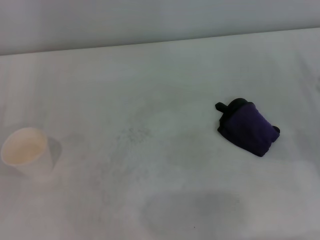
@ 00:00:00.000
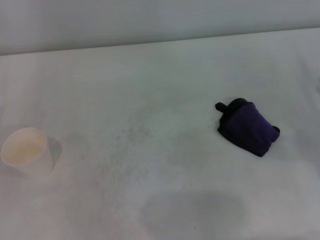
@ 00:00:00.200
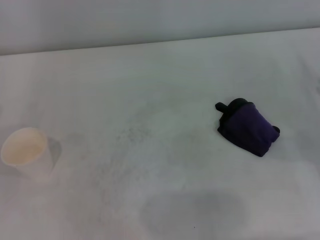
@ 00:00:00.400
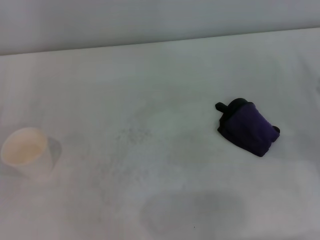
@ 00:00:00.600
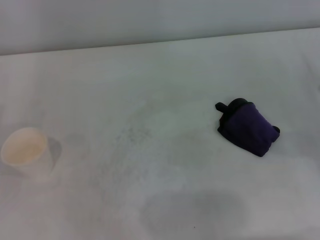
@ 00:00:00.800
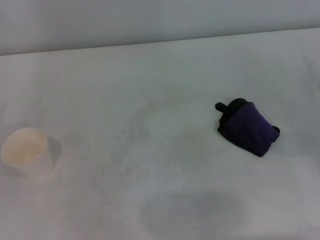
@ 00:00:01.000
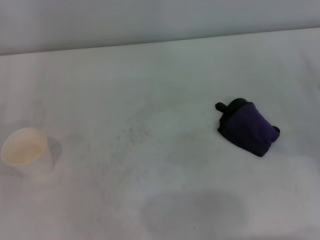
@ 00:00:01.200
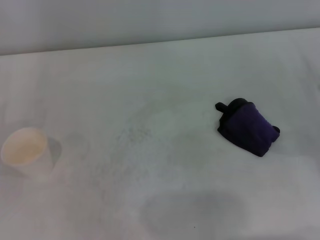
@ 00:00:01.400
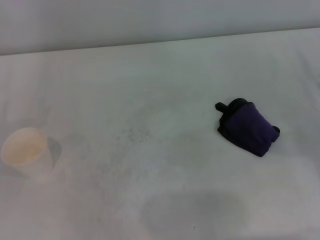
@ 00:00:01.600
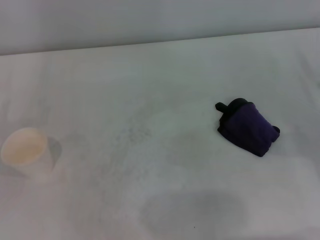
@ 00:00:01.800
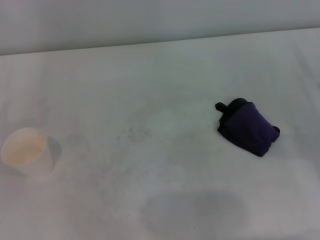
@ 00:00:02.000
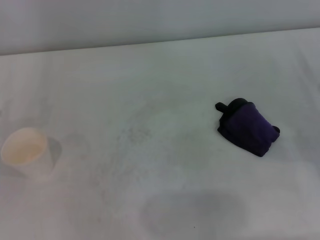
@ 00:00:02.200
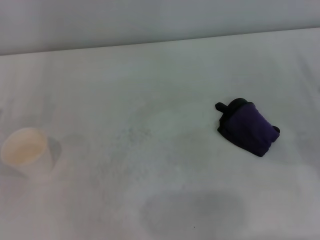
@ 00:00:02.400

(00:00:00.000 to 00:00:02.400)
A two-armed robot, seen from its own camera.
00:00:00.000 - 00:00:01.200: Both grippers stay about where they are.
00:00:01.200 - 00:00:02.400: Neither gripper changes place.

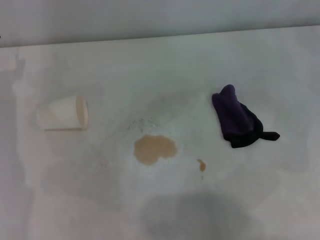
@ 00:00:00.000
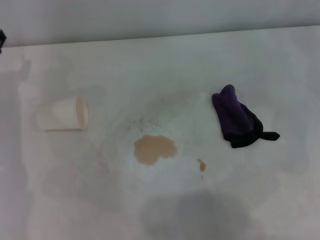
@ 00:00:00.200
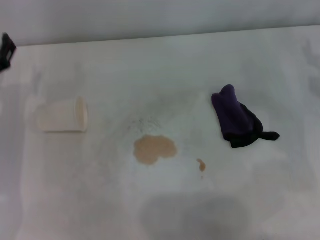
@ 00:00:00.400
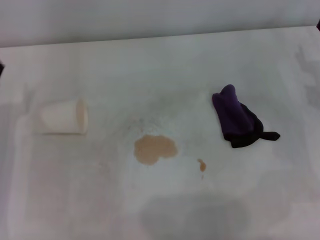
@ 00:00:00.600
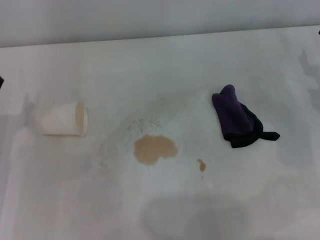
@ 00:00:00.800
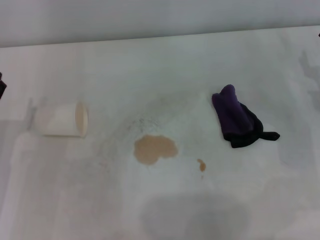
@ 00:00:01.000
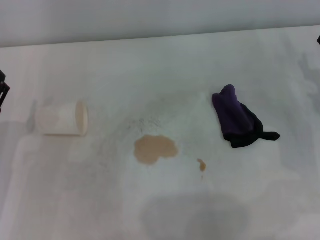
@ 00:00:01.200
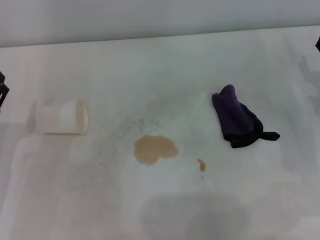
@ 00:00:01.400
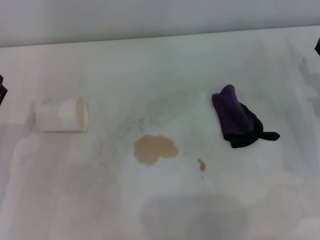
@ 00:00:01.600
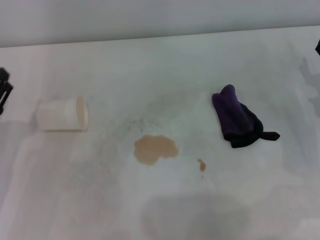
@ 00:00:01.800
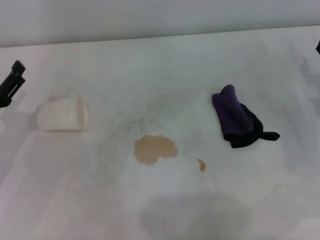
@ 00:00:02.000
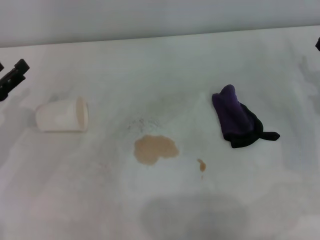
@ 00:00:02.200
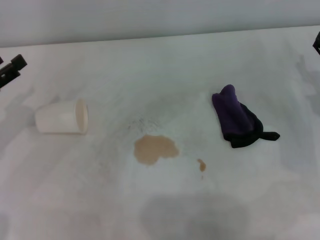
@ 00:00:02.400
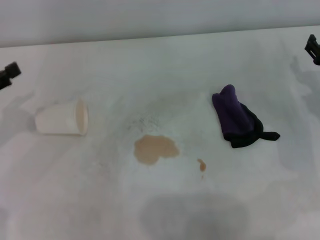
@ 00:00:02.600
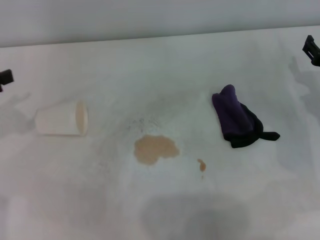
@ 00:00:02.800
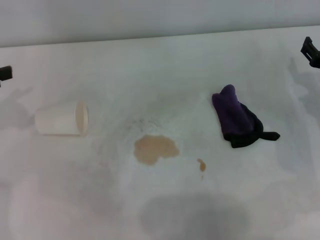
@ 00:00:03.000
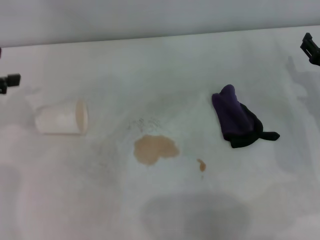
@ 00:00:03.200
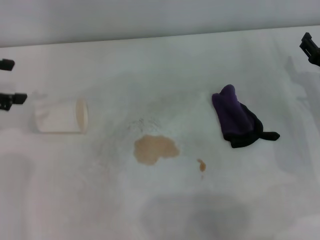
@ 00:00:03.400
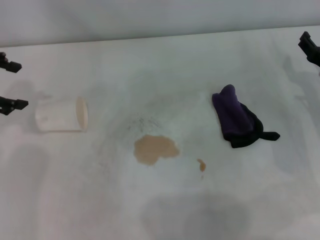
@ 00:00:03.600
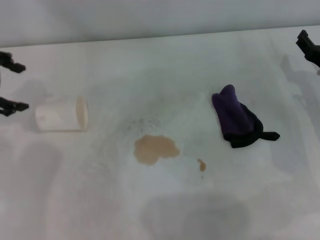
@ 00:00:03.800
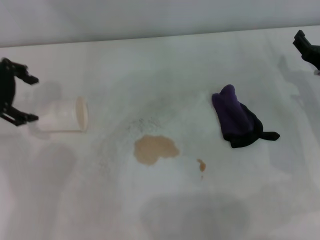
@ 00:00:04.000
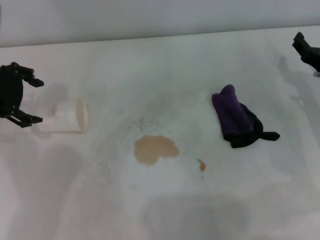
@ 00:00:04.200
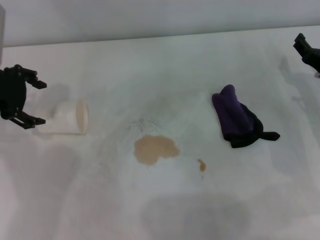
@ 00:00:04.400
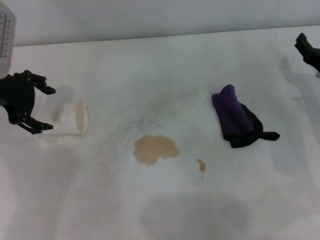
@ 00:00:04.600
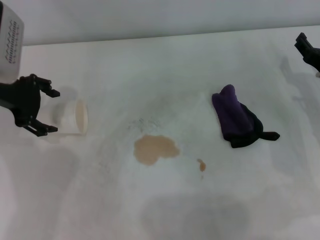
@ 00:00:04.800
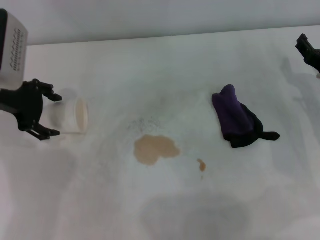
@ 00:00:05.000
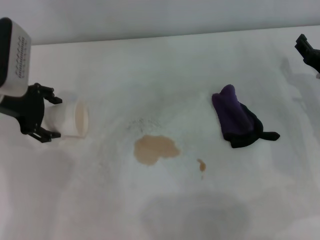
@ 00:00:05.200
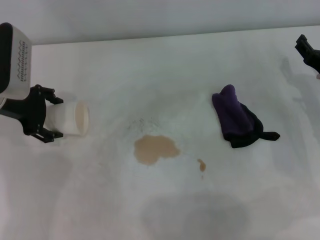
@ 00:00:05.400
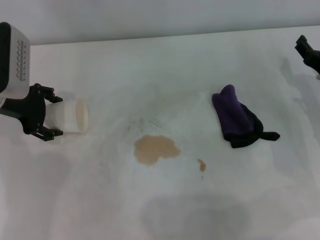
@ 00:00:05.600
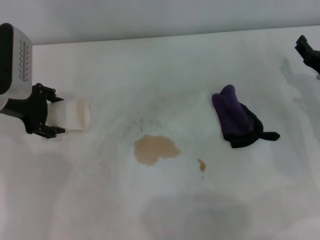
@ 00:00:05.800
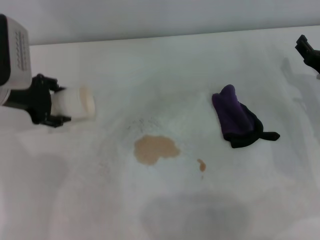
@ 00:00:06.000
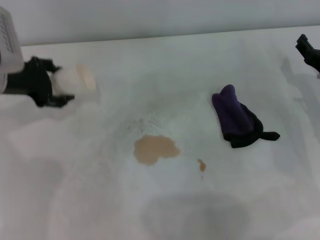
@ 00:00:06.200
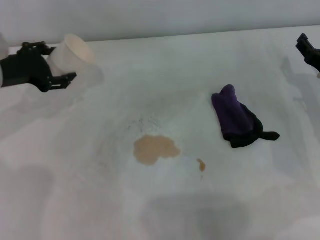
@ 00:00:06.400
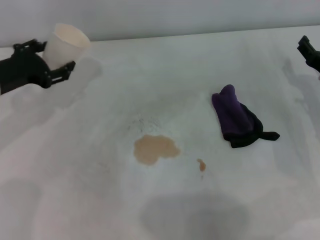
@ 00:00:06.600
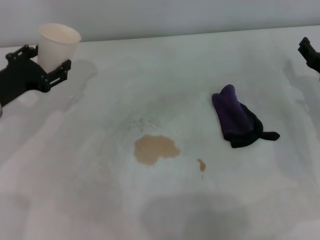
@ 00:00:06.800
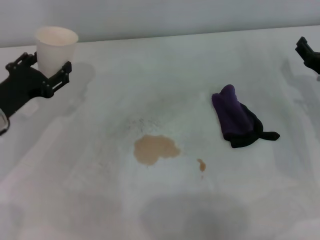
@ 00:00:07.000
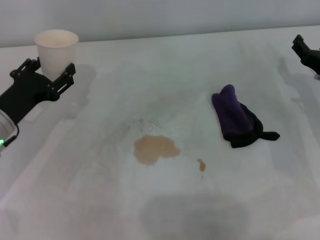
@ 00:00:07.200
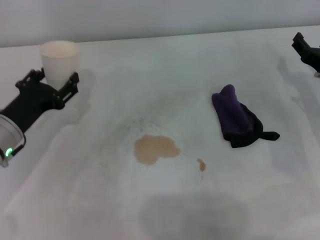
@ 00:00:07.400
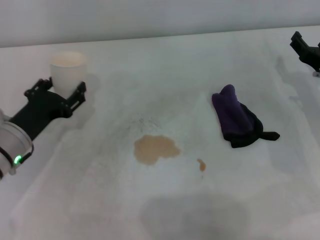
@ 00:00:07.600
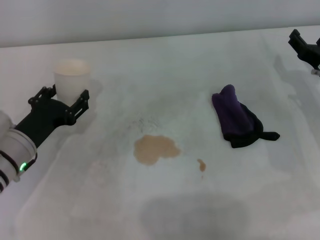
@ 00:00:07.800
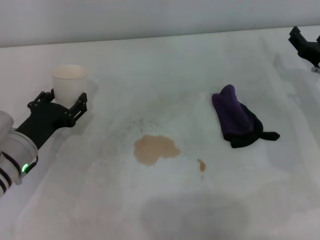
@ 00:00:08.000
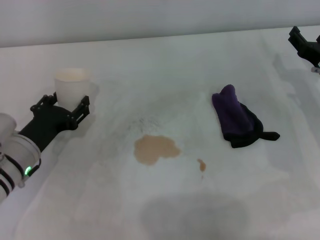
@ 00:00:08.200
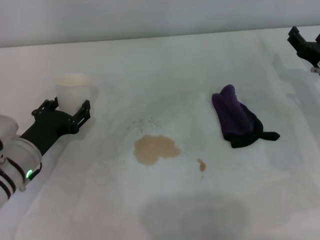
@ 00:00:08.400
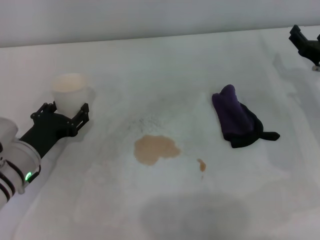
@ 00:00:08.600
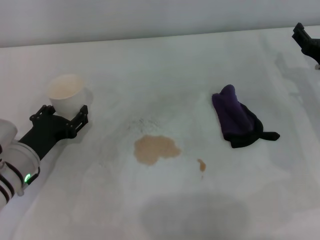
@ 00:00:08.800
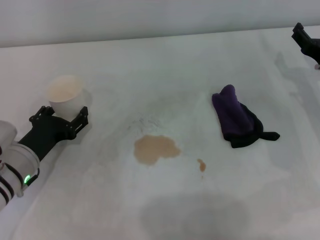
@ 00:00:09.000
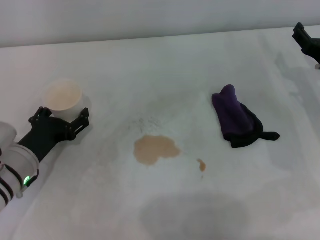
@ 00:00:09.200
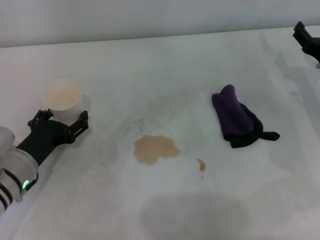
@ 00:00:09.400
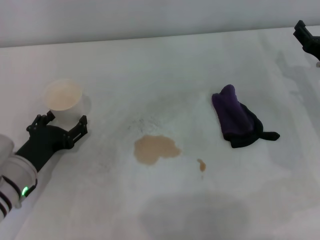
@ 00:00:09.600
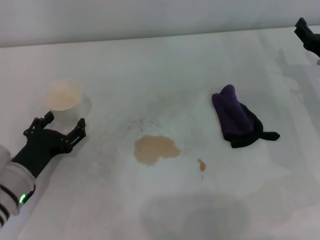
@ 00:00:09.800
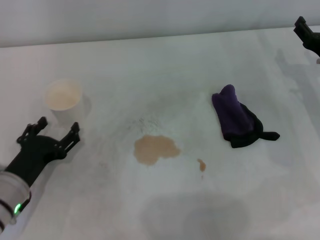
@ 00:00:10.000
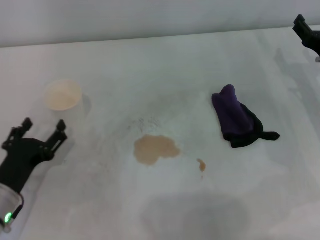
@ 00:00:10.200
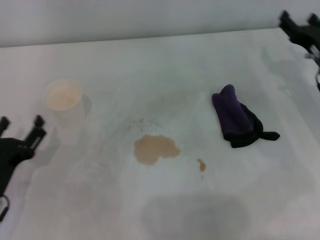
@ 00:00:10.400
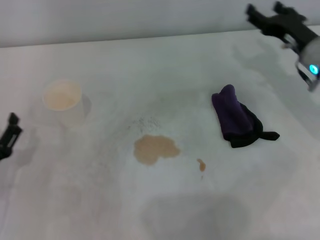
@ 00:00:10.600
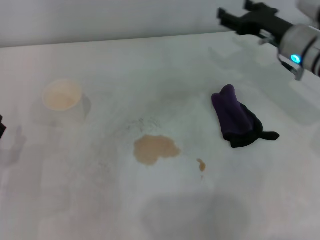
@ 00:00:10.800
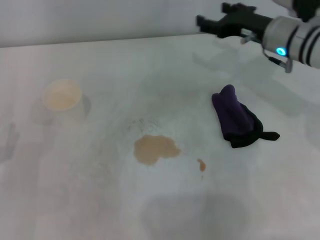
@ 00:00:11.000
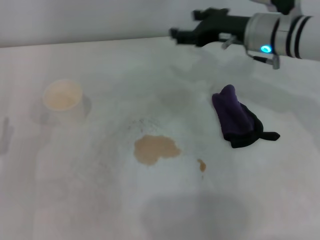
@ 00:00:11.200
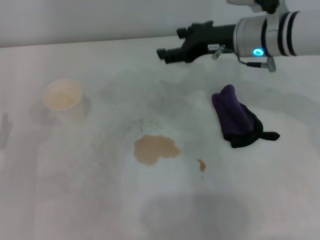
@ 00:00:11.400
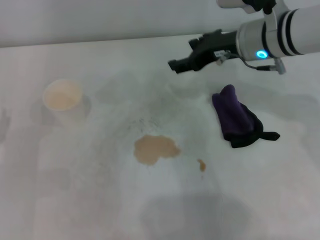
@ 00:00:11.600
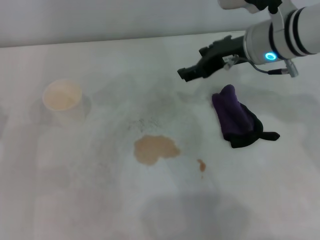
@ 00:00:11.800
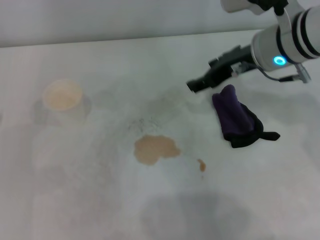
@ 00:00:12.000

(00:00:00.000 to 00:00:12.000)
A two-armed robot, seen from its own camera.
Step, 00:00:00.000 - 00:00:05.600: Grasp the paper cup with the left gripper.
Step, 00:00:05.800 - 00:00:09.400: Stand the paper cup upright with the left gripper.
00:00:00.000 - 00:00:01.600: The right gripper goes about 5 cm backward; the left gripper shifts some 15 cm backward.
00:00:01.600 - 00:00:03.000: The left gripper is displaced upward, forward and to the left by some 20 cm.
00:00:03.000 - 00:00:04.400: The left gripper is displaced to the right and forward by some 10 cm.
00:00:04.400 - 00:00:06.000: The left gripper goes roughly 5 cm downward, and closes up.
00:00:06.000 - 00:00:07.600: The left gripper shifts about 15 cm downward and backward.
00:00:07.600 - 00:00:09.000: The grippers stay close to where they were, moving slightly.
00:00:09.000 - 00:00:10.400: The left gripper travels backward by roughly 10 cm, and opens.
00:00:10.400 - 00:00:12.000: The left gripper is displaced to the left by about 5 cm. Meanwhile the right gripper heads to the left and upward, covering approximately 20 cm.

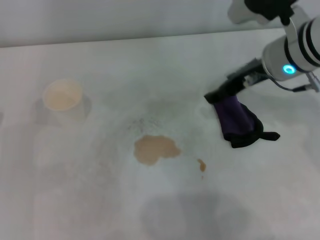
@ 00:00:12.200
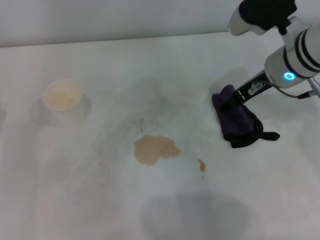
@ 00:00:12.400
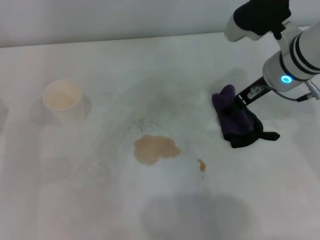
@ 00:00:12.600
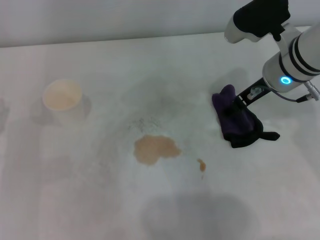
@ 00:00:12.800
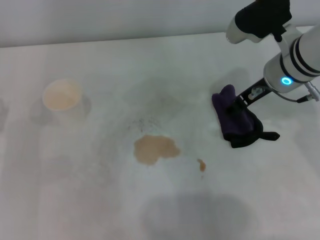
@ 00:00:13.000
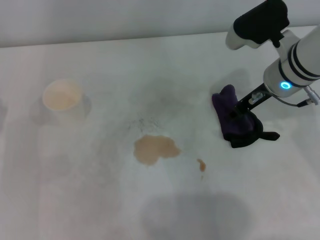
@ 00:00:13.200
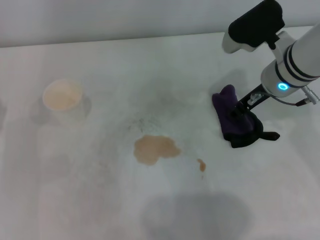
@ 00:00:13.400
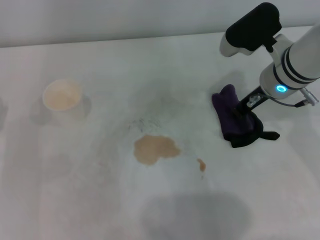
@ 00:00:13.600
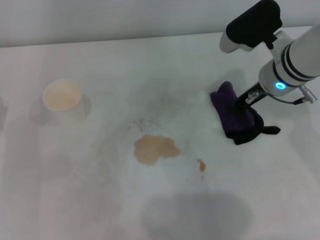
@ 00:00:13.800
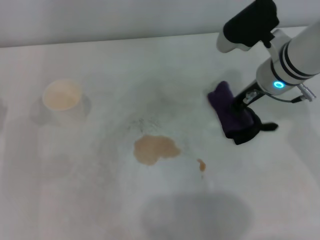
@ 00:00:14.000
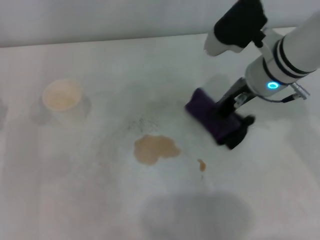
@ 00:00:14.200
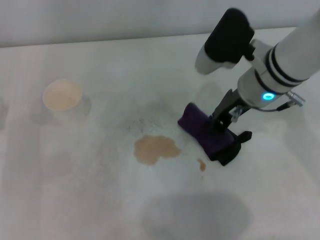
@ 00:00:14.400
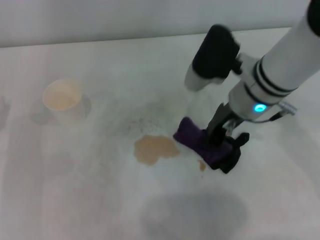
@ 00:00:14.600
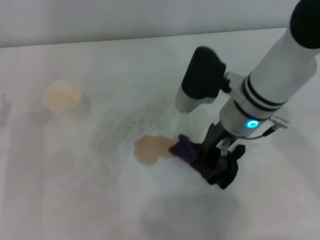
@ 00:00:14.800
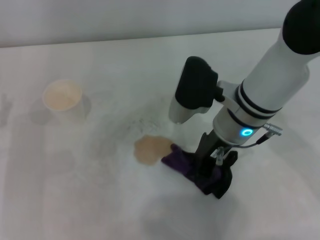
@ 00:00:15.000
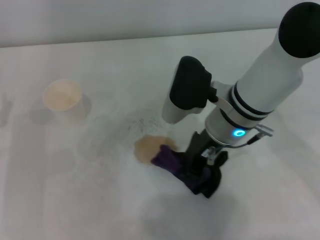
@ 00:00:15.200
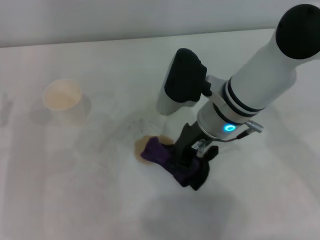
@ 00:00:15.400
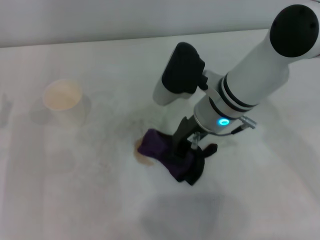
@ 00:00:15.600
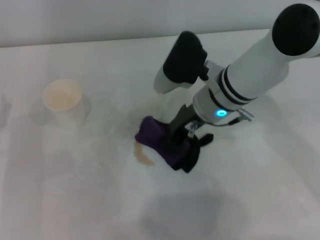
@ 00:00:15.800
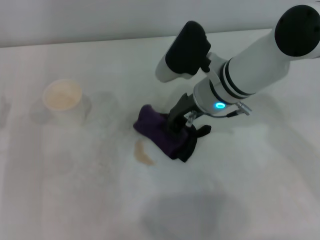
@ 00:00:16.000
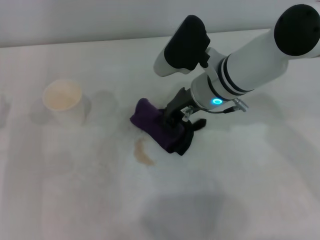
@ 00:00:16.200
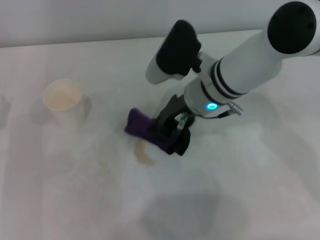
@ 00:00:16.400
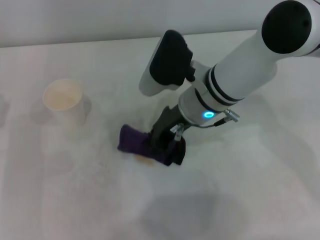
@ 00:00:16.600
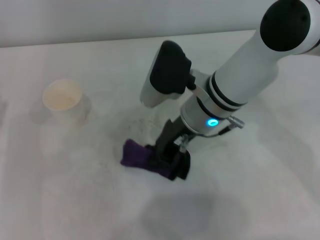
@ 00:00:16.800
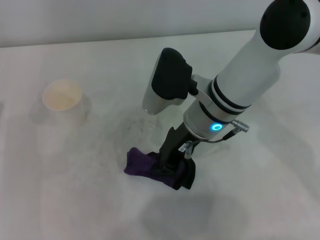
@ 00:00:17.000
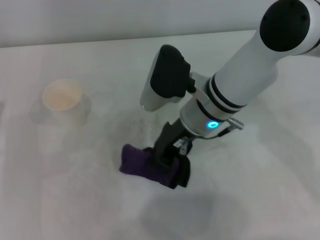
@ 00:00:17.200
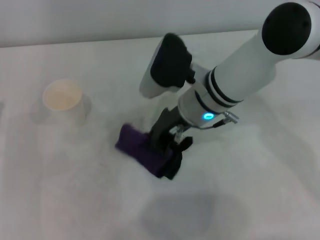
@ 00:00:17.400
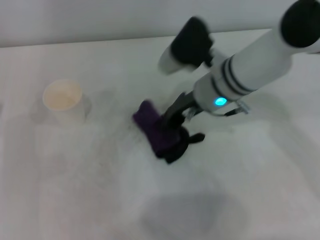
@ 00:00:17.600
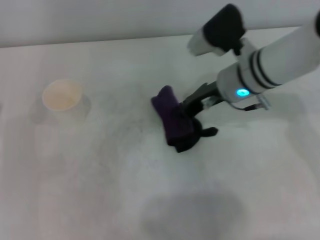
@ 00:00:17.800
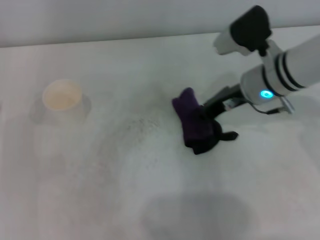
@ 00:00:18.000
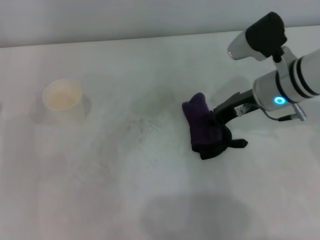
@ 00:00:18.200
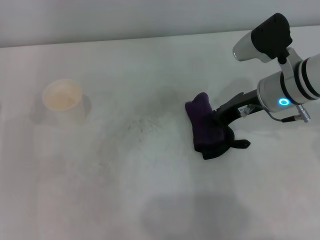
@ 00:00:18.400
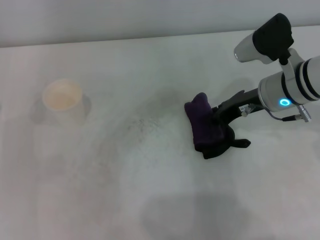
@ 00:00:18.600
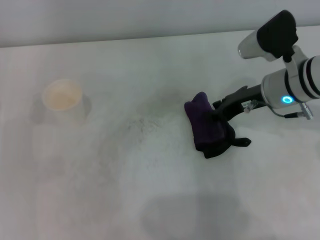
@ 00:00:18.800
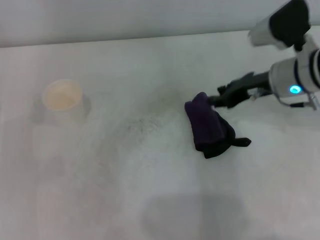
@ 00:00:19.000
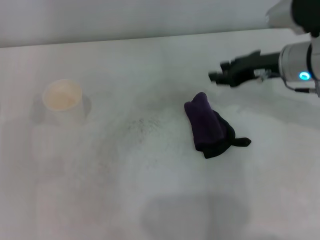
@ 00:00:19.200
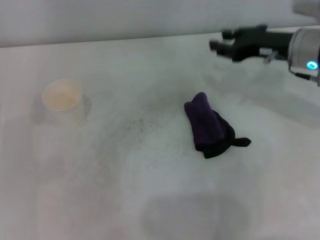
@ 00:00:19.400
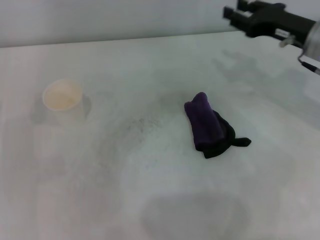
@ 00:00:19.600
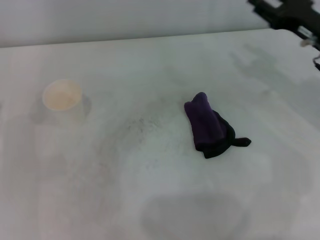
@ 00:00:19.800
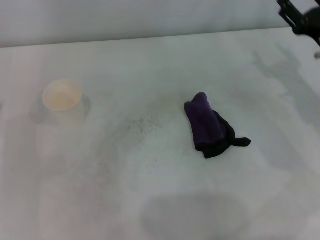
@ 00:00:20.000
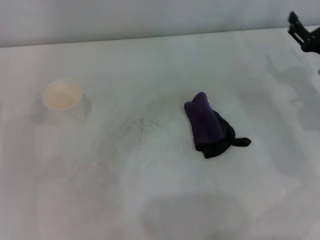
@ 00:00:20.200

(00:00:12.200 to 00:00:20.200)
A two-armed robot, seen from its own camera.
Step, 00:00:13.600 - 00:00:17.600: Wipe the stains off the table with the right gripper.
Step, 00:00:17.800 - 00:00:18.600: Place the rag on the table with the right gripper.
00:00:12.200 - 00:00:13.800: The right gripper closes.
00:00:13.800 - 00:00:15.400: The right gripper is displaced to the left by roughly 10 cm, and closes.
00:00:15.400 - 00:00:17.000: The grippers make only small movements.
00:00:17.000 - 00:00:18.600: The right gripper heads to the right, covering some 15 cm.
00:00:18.600 - 00:00:20.200: The right gripper goes some 10 cm to the right, and opens.
